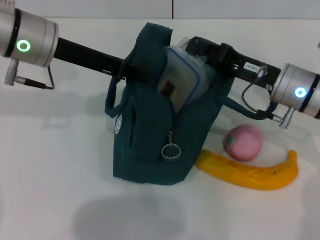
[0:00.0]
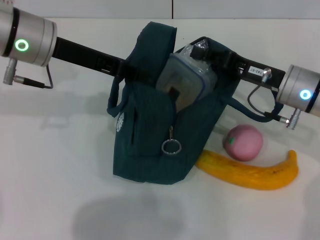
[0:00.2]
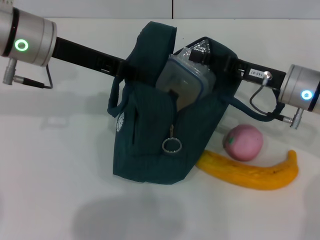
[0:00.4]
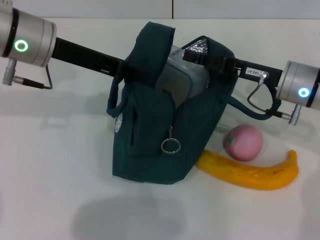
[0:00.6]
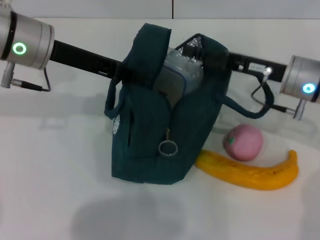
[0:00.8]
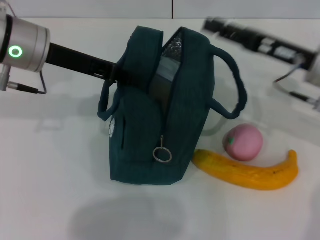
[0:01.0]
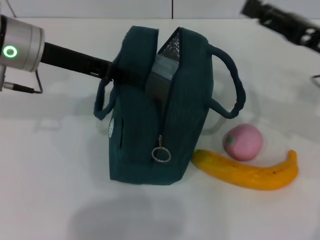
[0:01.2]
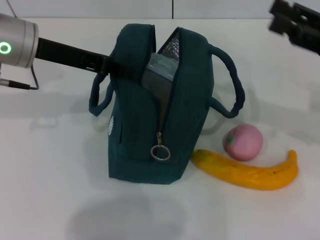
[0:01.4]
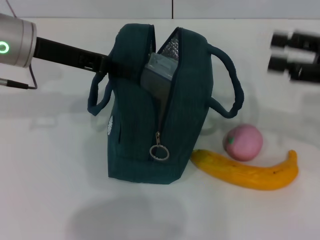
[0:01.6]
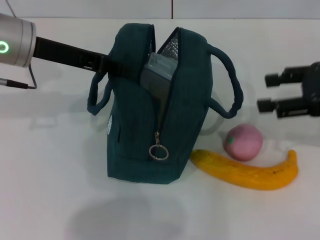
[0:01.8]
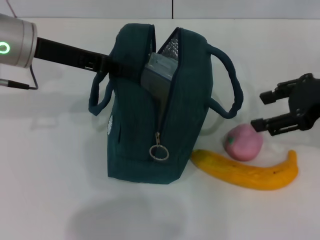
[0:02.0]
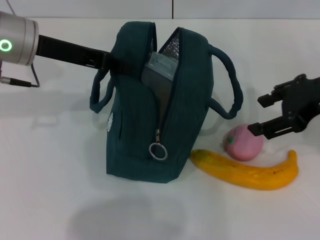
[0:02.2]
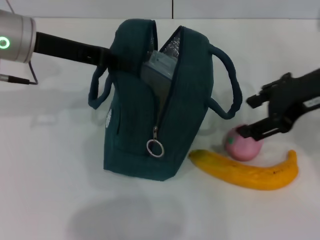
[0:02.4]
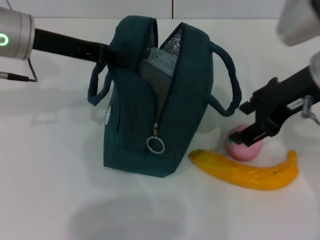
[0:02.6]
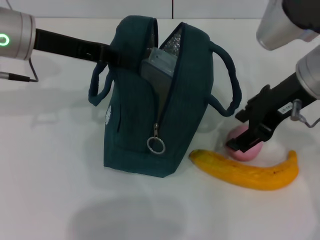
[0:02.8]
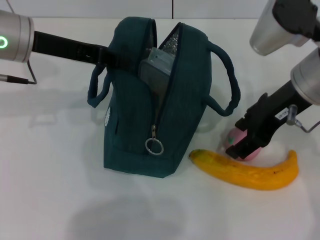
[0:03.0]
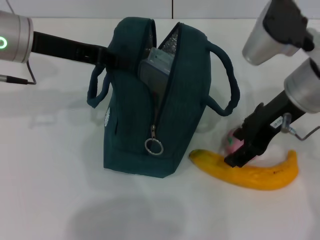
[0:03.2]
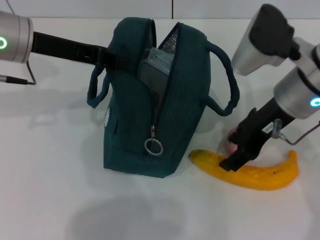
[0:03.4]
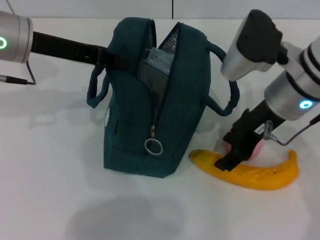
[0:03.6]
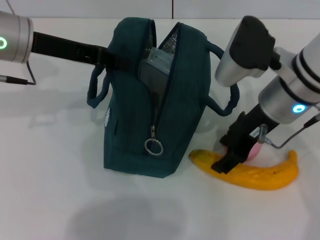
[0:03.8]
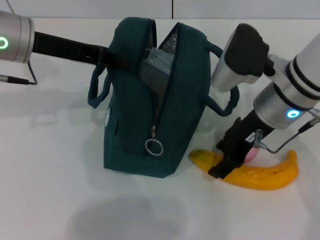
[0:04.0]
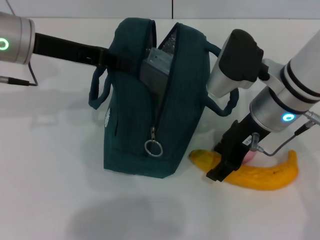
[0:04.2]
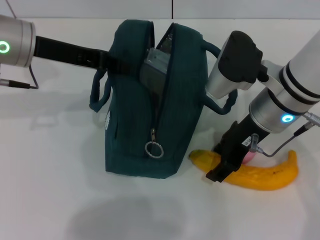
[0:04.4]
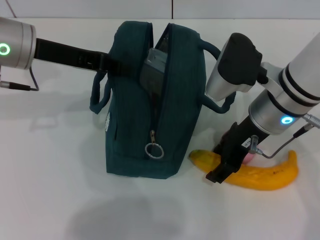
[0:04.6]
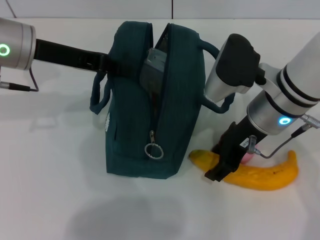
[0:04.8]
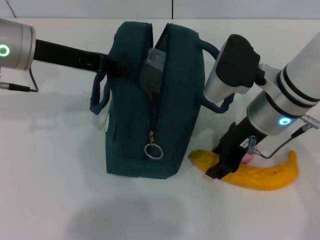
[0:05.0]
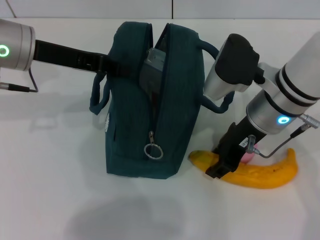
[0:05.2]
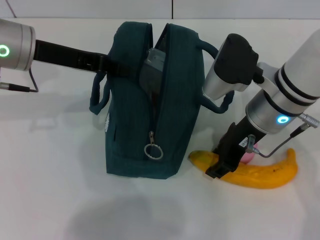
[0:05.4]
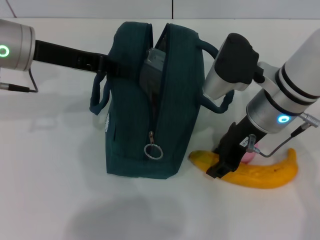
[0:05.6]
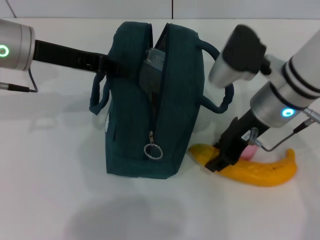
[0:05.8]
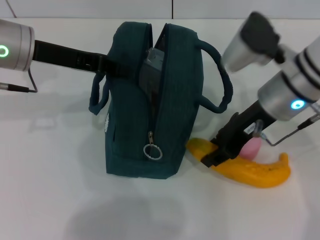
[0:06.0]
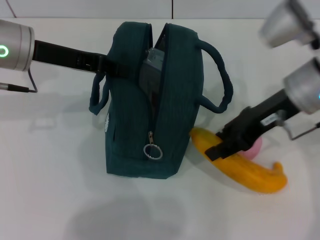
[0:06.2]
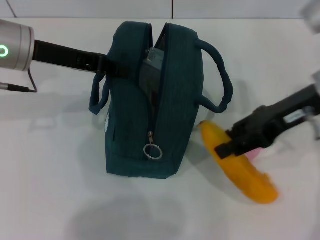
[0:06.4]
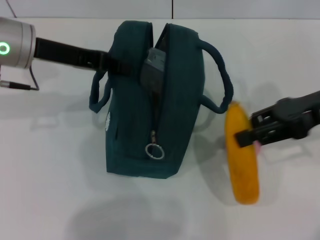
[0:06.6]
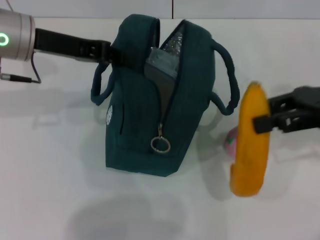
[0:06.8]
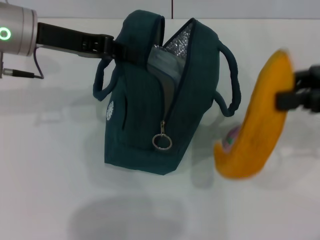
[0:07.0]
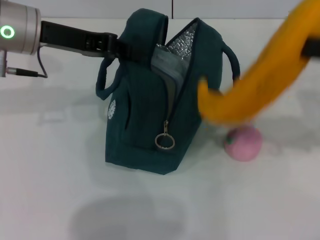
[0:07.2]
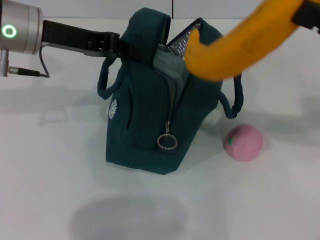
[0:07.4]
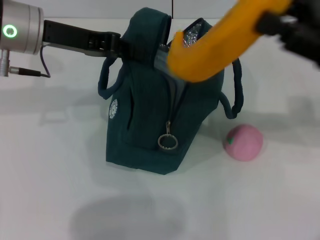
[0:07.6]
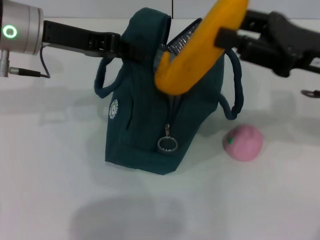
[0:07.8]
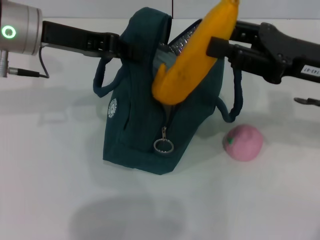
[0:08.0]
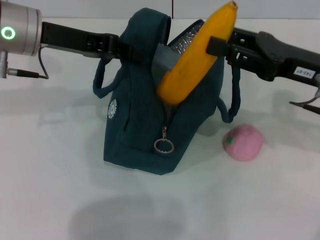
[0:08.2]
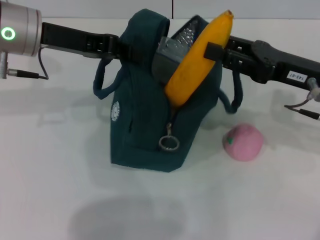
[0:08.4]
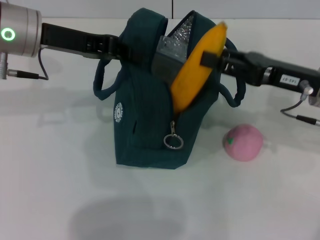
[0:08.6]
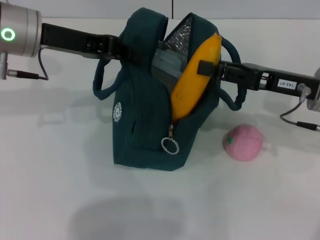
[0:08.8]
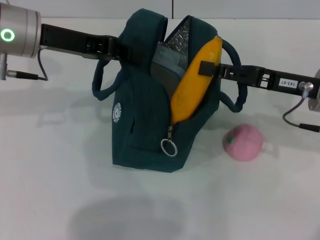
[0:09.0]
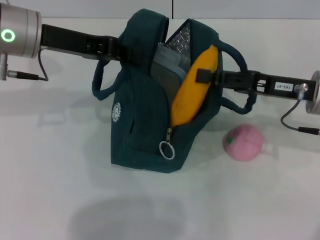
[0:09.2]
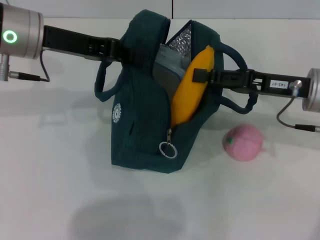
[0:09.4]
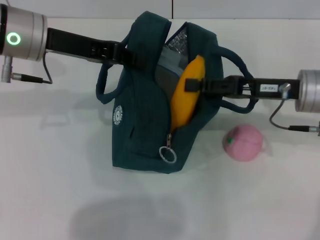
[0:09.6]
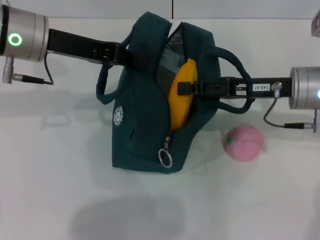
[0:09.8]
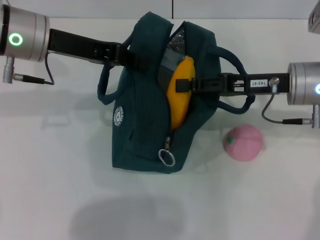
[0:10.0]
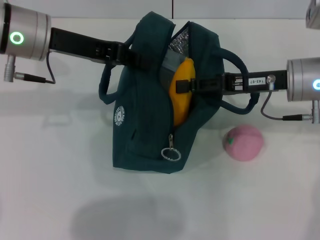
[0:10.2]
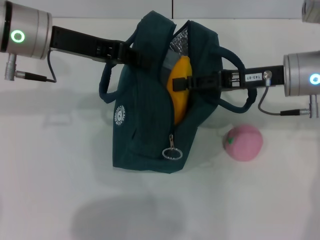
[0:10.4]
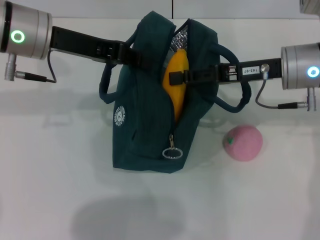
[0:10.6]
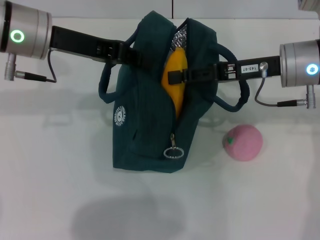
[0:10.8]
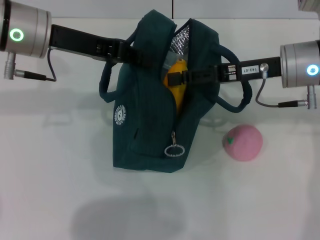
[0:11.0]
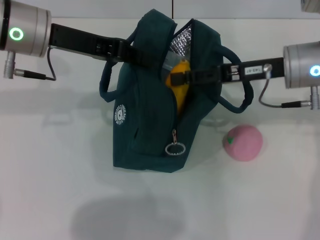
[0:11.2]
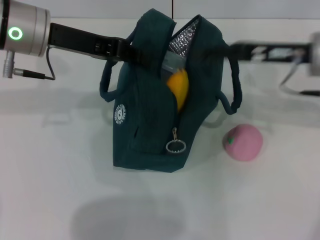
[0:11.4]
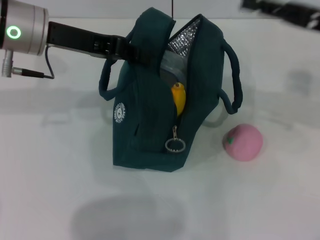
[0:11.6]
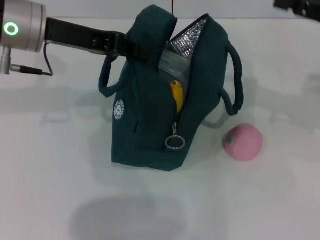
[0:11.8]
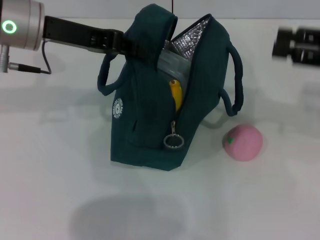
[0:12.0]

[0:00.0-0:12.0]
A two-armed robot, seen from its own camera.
Step, 0:01.0 to 0:05.4: Take the banana with your right hand.
Step, 0:05.6 to 0:11.4: Put the banana into the lunch bag with your right hand.
0:00.0 to 0:01.6: The right gripper travels to the right and upward by some 15 cm, and opens up.
0:01.6 to 0:03.0: The right gripper is displaced to the left by roughly 15 cm.
0:03.0 to 0:04.4: The right gripper travels downward by about 5 cm.
0:04.4 to 0:06.0: The grippers stay close to where they were, moving slightly.
0:06.0 to 0:07.6: The right gripper heads to the right, covering roughly 10 cm.
0:07.6 to 0:09.0: The right gripper moves downward, about 5 cm.
0:09.0 to 0:10.4: The right gripper shifts by some 5 cm.
0:10.4 to 0:12.0: The right gripper goes approximately 15 cm to the right and upward.

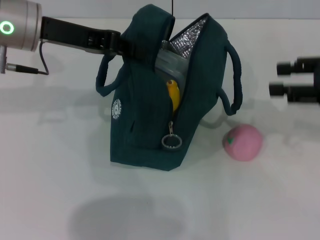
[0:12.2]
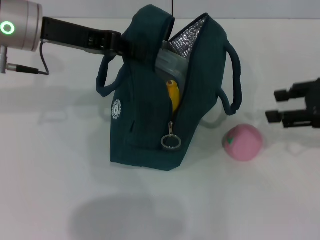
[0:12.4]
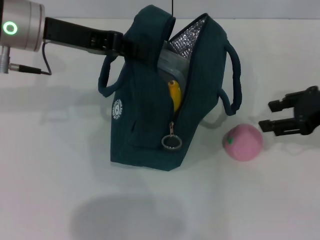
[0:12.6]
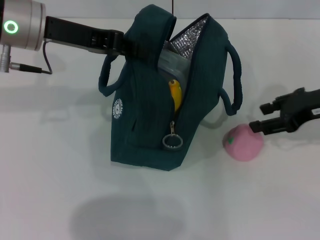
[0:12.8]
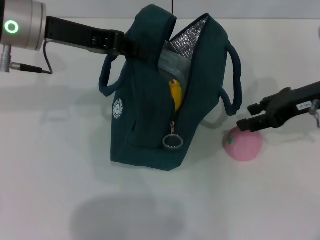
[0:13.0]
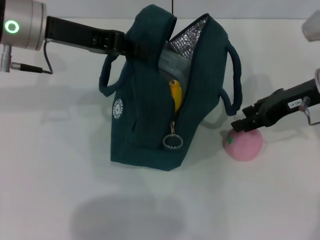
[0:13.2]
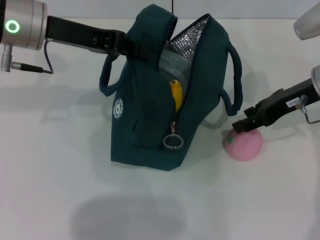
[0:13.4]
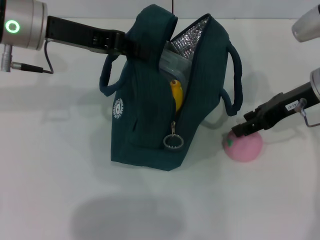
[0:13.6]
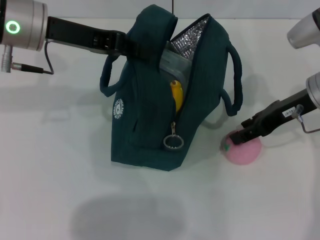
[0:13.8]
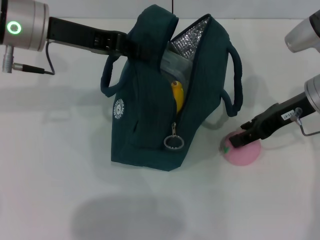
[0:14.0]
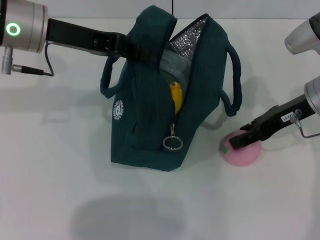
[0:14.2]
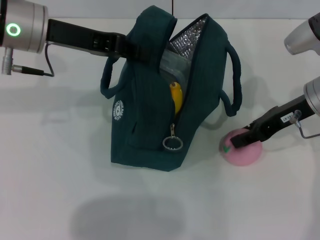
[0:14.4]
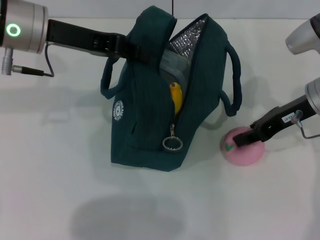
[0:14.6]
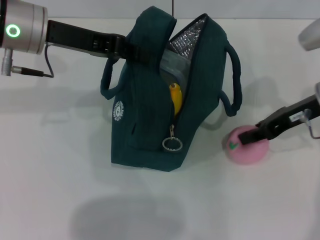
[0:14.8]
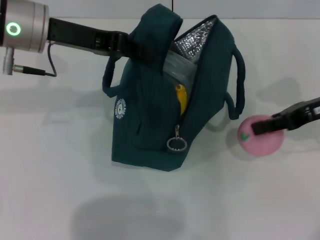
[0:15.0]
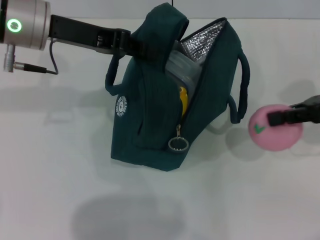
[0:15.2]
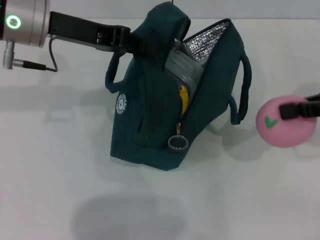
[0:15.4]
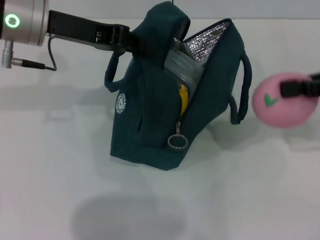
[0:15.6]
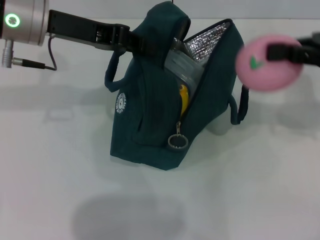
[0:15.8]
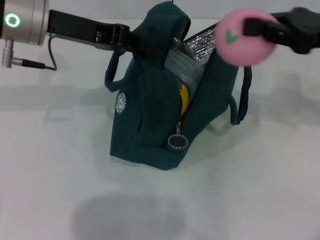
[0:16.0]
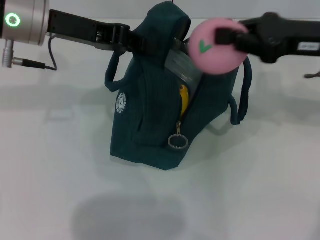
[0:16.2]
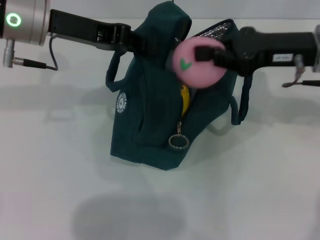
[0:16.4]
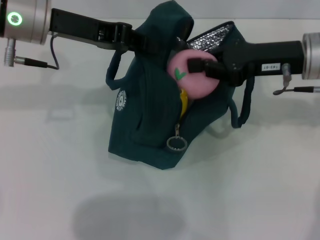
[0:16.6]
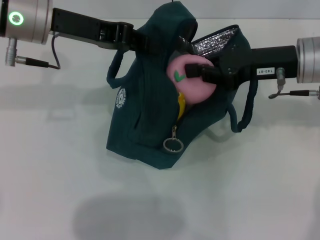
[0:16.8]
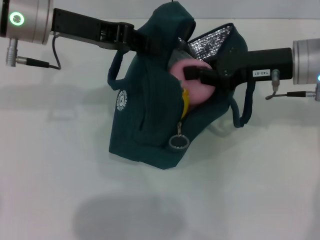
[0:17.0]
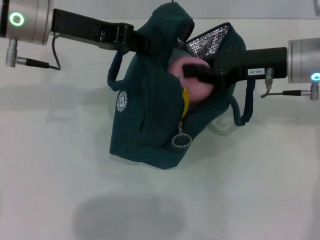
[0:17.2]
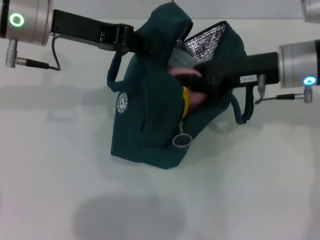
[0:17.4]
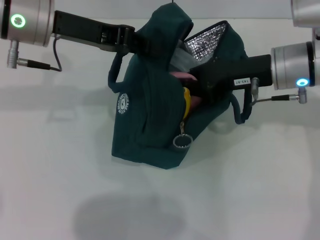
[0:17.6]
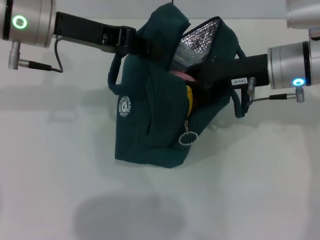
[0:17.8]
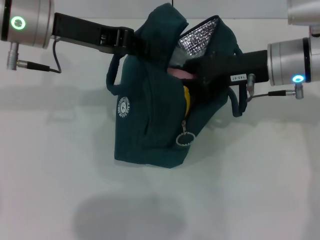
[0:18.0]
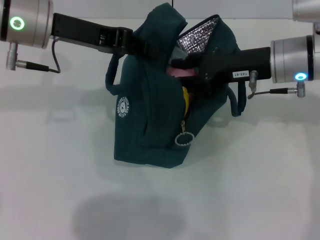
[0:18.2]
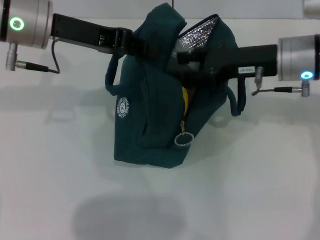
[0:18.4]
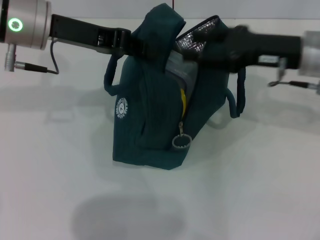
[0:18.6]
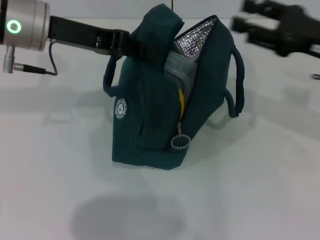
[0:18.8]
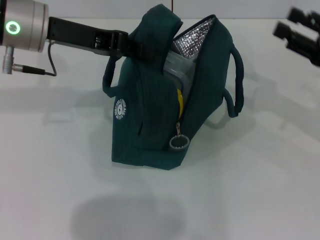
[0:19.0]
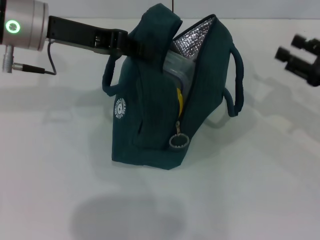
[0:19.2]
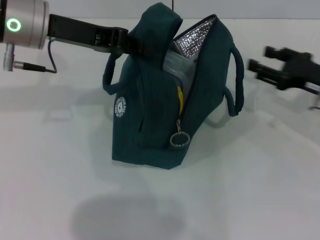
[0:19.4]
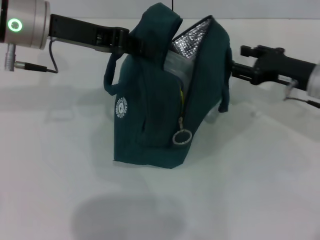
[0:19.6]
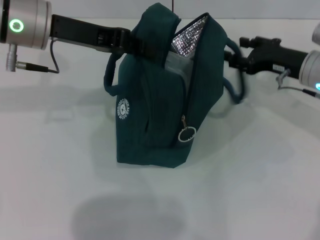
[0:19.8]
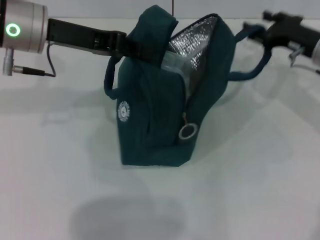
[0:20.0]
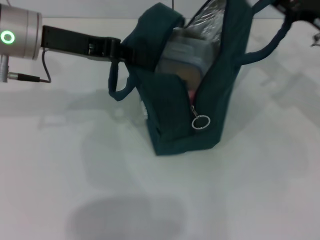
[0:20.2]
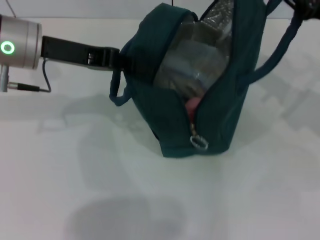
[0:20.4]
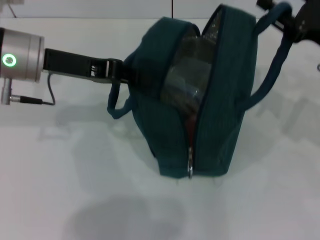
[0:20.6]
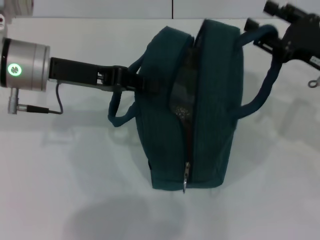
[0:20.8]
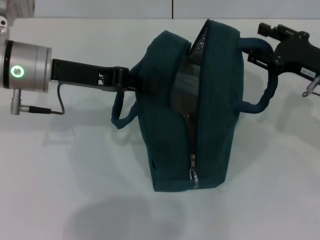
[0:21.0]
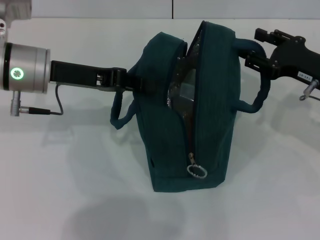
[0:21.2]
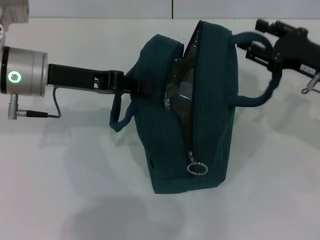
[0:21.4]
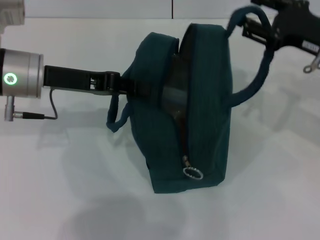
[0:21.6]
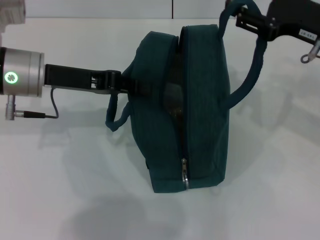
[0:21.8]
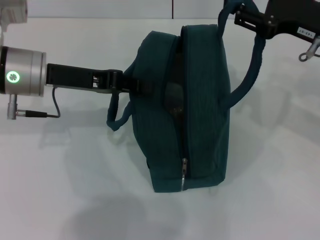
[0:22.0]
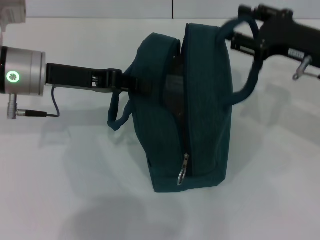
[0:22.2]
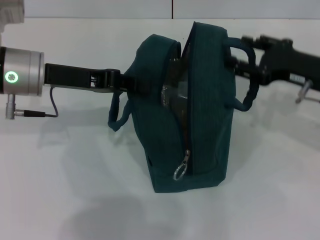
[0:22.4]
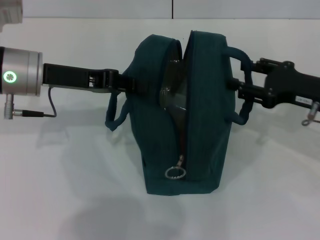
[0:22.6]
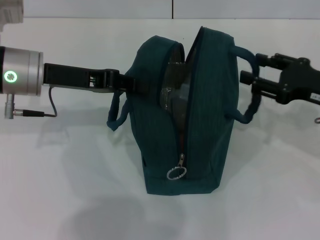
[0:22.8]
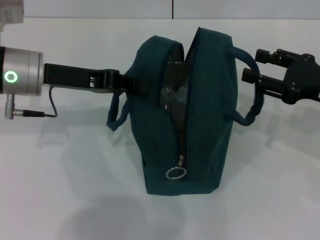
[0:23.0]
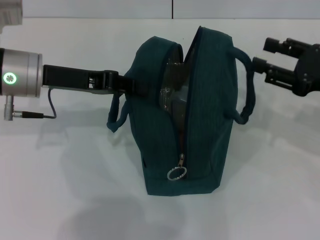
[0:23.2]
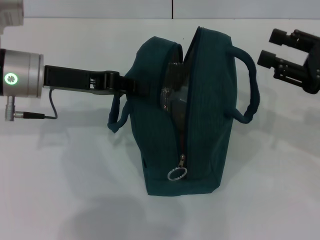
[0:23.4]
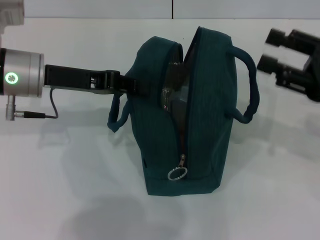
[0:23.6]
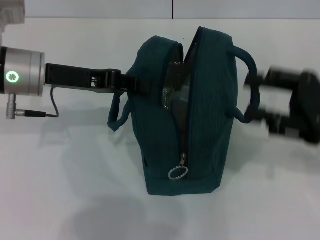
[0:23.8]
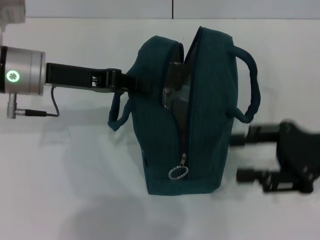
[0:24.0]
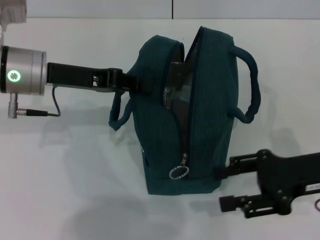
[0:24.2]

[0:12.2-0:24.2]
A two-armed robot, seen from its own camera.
Step, 0:12.2 to 0:14.6: Grab the peach with your right hand.
Step, 0:18.6 to 0:23.2: Hold the lunch bag with your right hand.
0:12.2 to 0:13.8: The right gripper heads to the left and forward, covering some 10 cm.
0:13.8 to 0:15.2: The right gripper is displaced to the right by about 10 cm, and closes up.
0:15.2 to 0:16.6: The right gripper is displaced to the left by about 10 cm.
0:16.6 to 0:18.2: The grippers stay close to where they were, moving slightly.
0:18.2 to 0:19.8: The right gripper travels to the right and downward by some 10 cm.
0:19.8 to 0:21.2: The right gripper goes approximately 5 cm backward, while the left gripper travels downward by some 5 cm.
0:22.6 to 0:24.2: The right gripper heads backward, covering about 5 cm.
